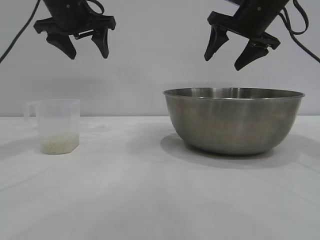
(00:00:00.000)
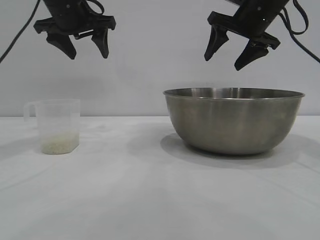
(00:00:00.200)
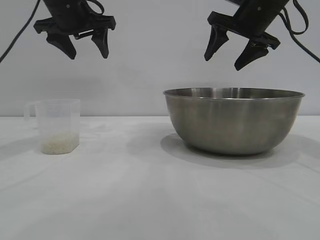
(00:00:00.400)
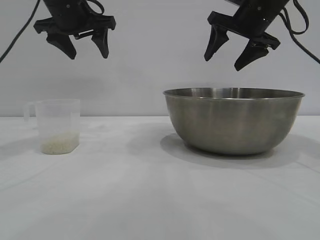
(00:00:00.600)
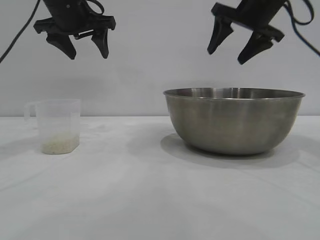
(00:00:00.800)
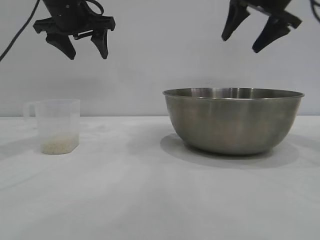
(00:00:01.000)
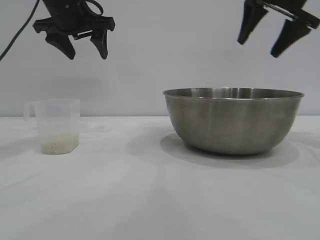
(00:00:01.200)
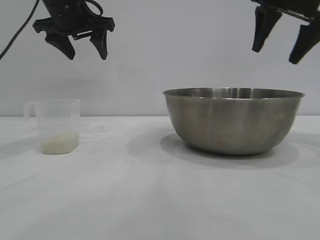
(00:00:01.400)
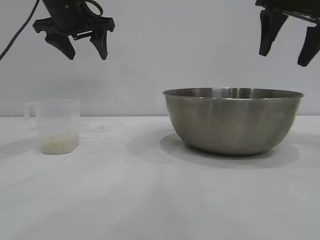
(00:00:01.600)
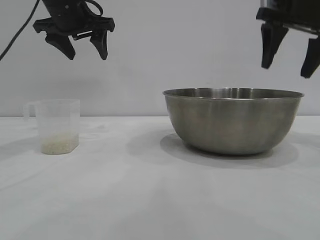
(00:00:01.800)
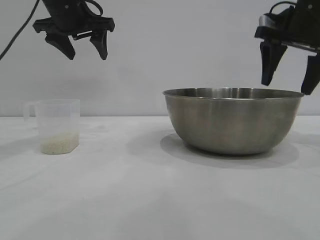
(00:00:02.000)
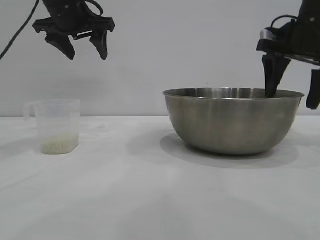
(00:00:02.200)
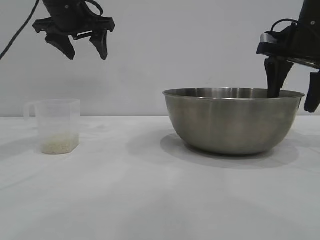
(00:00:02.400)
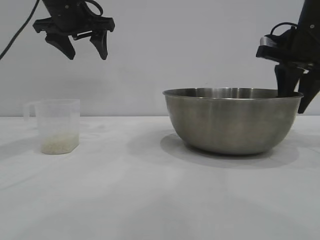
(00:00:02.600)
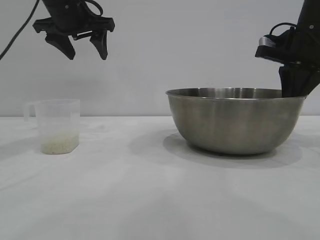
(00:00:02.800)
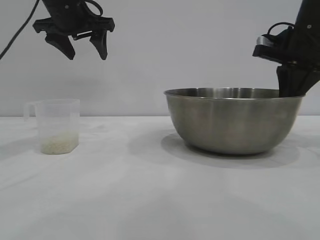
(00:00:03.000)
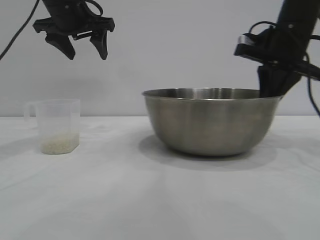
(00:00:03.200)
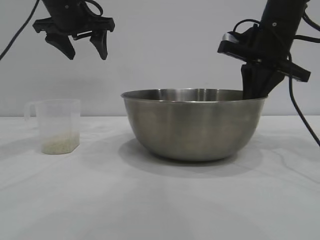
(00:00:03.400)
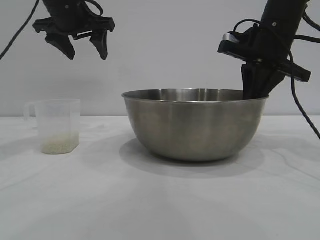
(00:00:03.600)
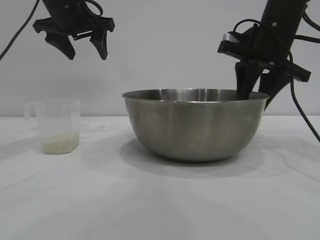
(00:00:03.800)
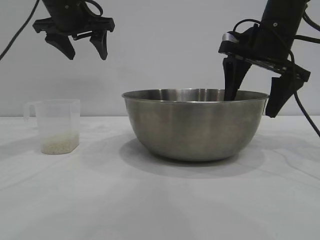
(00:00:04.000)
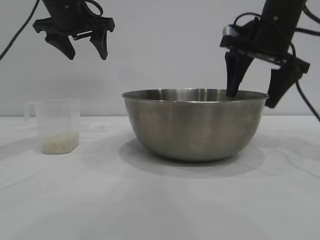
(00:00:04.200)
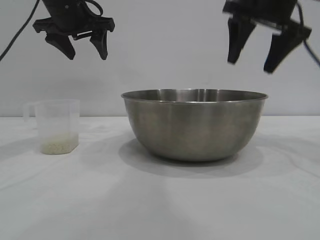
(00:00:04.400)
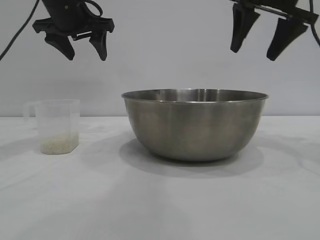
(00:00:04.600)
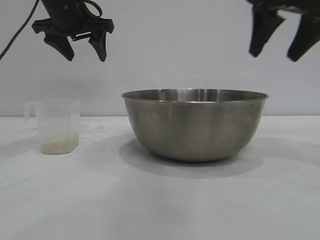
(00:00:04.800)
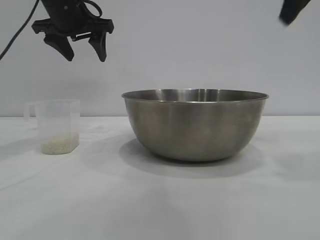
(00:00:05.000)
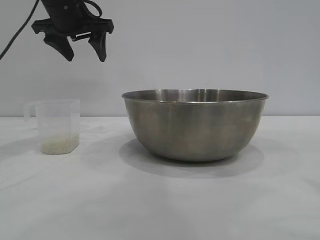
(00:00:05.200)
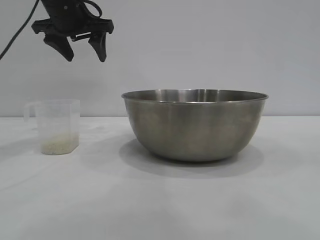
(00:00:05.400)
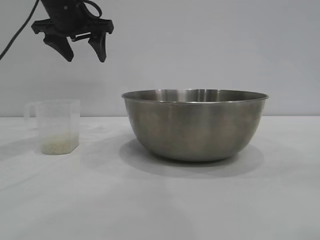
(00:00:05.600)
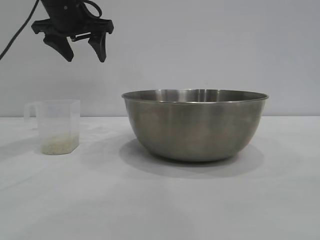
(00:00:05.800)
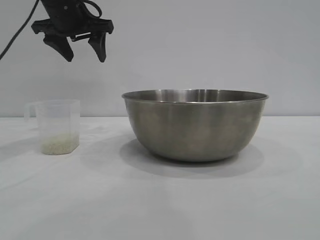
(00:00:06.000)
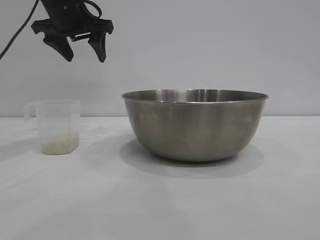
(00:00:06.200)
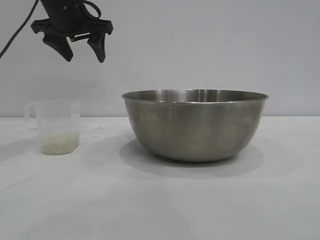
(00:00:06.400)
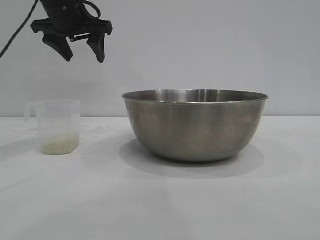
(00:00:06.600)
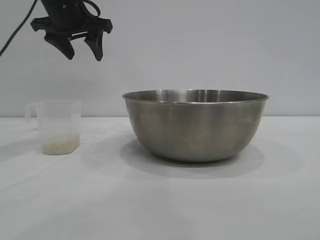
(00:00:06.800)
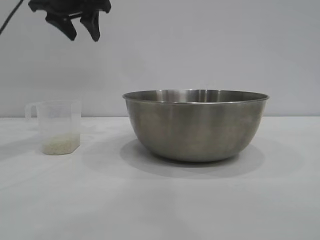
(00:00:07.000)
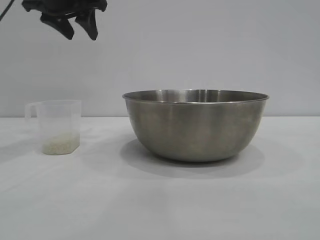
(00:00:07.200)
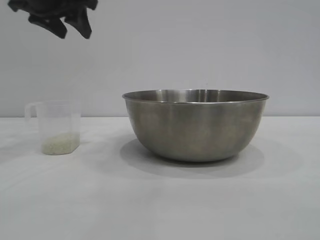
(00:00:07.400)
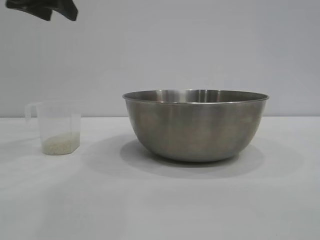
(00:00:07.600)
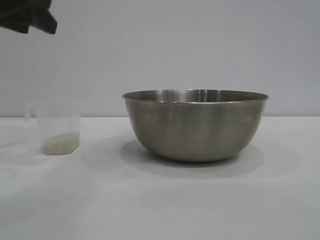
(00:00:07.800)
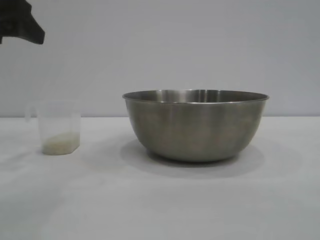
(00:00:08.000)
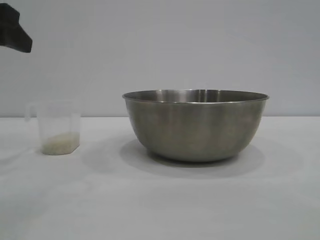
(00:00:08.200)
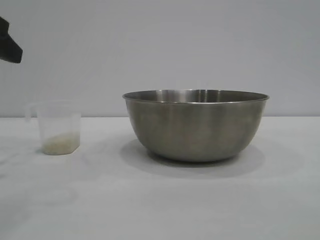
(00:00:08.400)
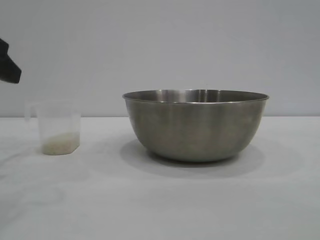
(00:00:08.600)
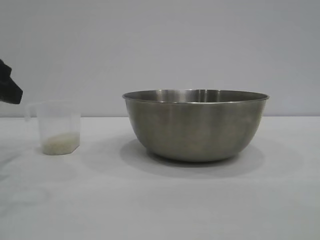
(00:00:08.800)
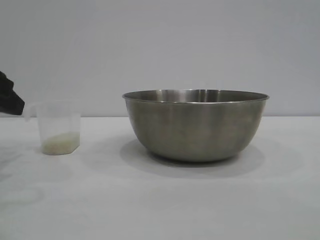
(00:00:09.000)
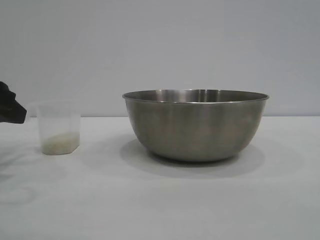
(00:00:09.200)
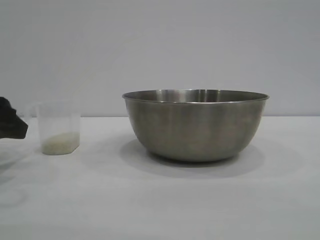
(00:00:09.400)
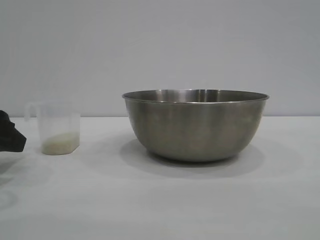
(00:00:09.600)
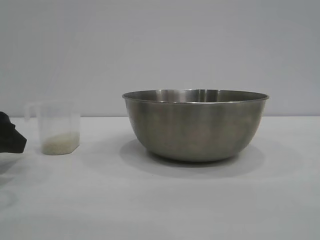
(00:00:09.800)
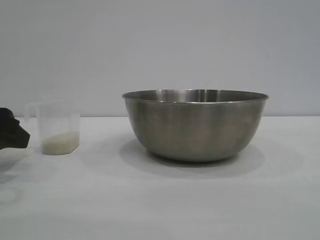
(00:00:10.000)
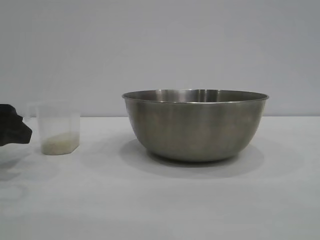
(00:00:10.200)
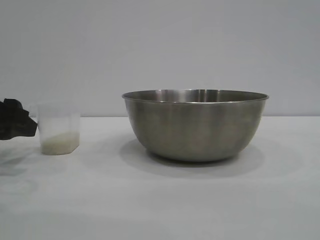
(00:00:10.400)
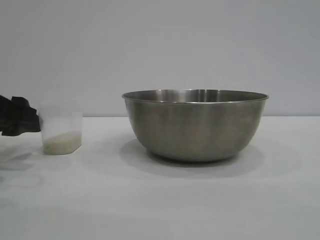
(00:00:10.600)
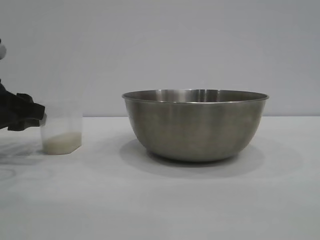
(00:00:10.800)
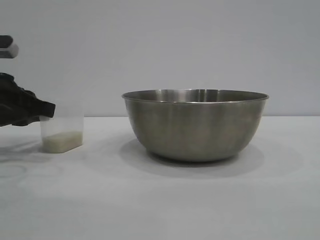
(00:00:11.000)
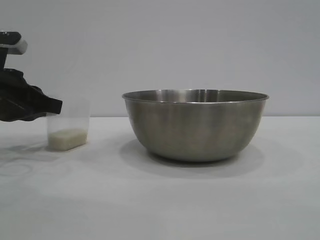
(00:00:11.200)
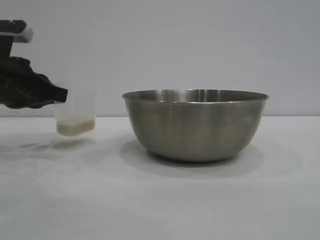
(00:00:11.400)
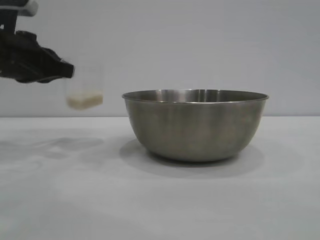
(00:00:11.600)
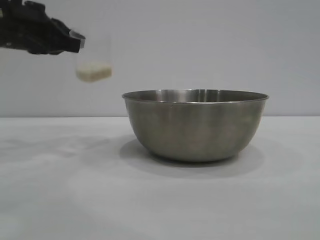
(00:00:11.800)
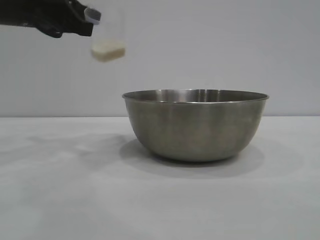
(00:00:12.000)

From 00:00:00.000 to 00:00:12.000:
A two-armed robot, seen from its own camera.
Task of the whole recording: the right gripper grasp the rice container and place it in the center of the table, the left gripper grasp the rice scoop and pour the rice into the rice container.
Step, from 00:00:00.000 to 00:00:04.600: Move the bowl to the center of view with the right gripper.
Step, from 00:00:04.800 to 00:00:11.600: Pick up the cup with rice in it with the left gripper.

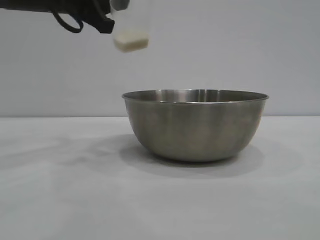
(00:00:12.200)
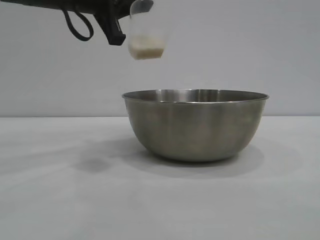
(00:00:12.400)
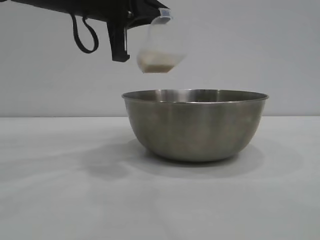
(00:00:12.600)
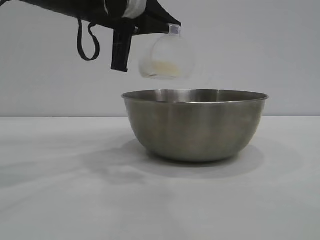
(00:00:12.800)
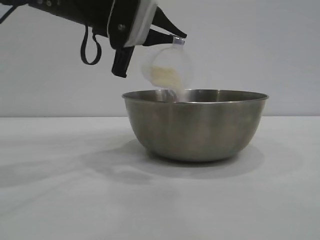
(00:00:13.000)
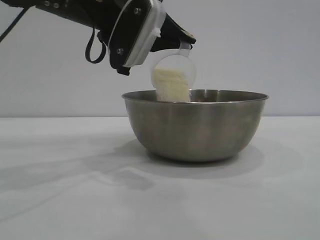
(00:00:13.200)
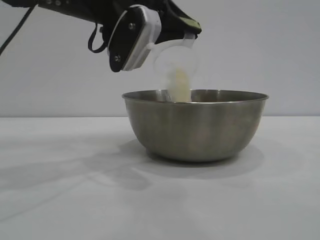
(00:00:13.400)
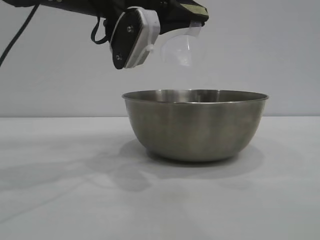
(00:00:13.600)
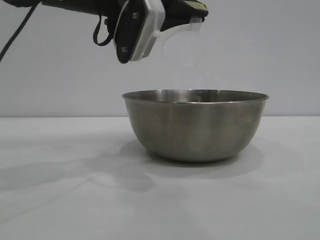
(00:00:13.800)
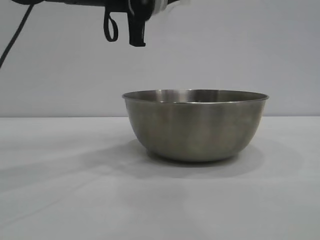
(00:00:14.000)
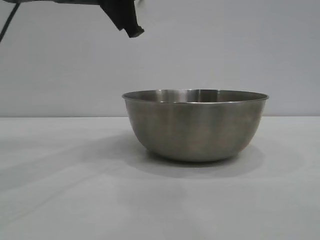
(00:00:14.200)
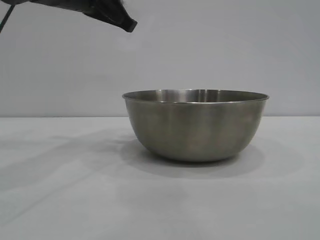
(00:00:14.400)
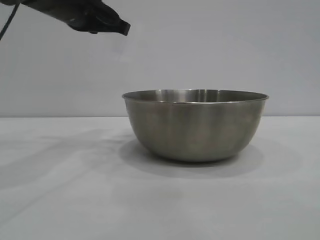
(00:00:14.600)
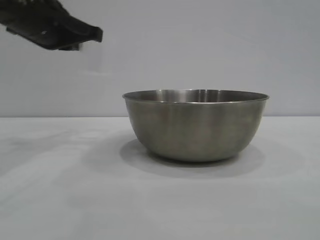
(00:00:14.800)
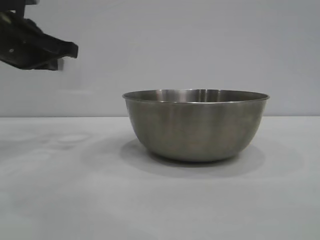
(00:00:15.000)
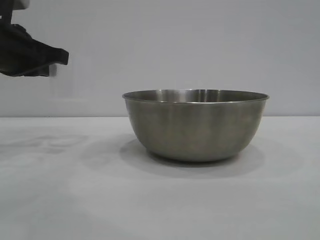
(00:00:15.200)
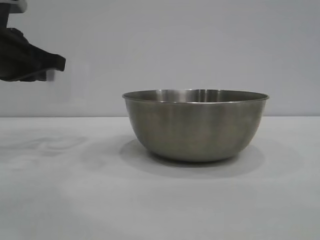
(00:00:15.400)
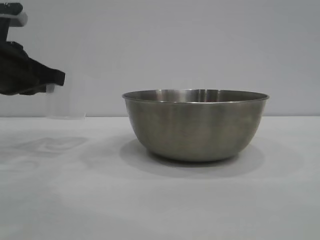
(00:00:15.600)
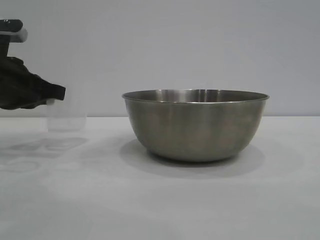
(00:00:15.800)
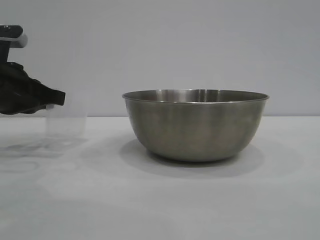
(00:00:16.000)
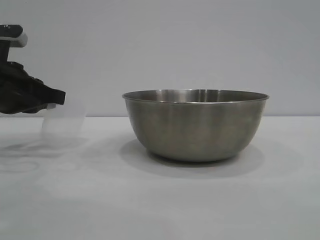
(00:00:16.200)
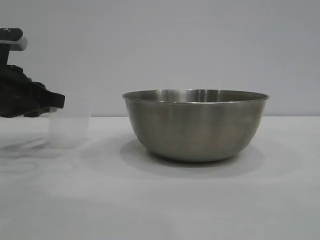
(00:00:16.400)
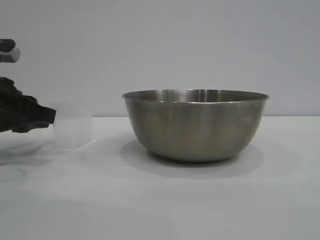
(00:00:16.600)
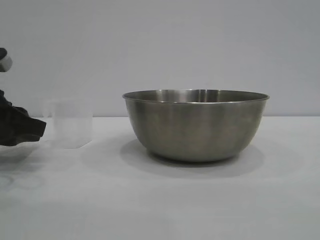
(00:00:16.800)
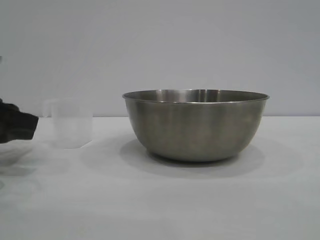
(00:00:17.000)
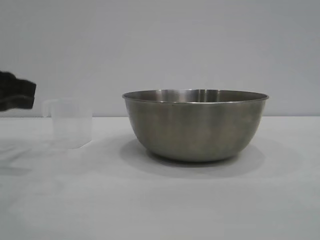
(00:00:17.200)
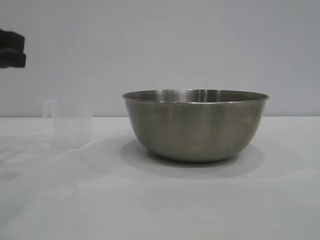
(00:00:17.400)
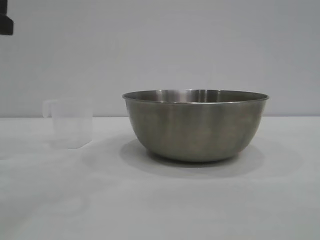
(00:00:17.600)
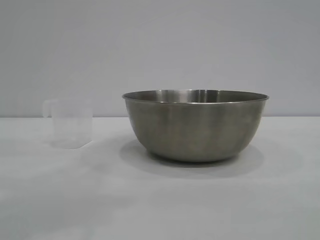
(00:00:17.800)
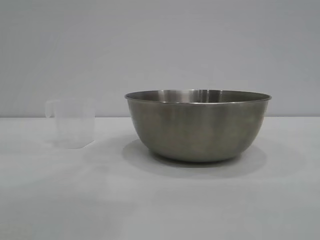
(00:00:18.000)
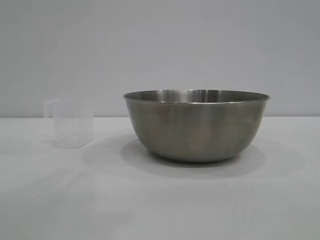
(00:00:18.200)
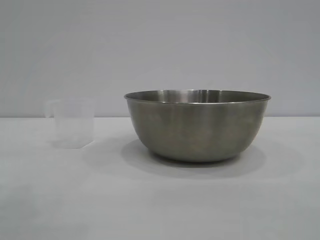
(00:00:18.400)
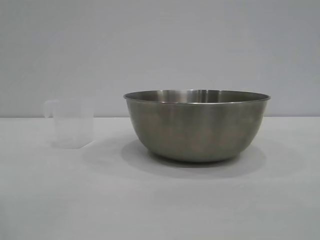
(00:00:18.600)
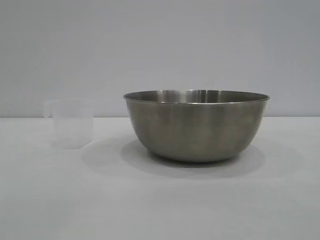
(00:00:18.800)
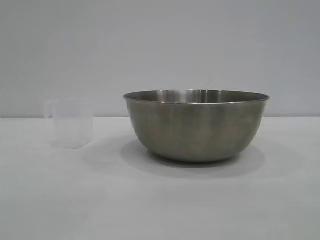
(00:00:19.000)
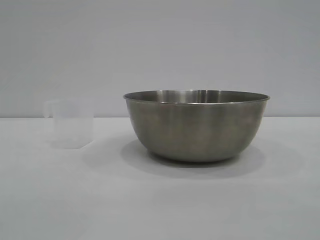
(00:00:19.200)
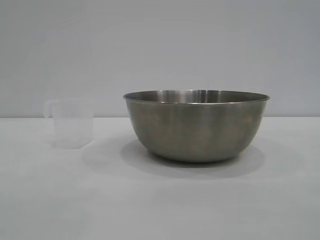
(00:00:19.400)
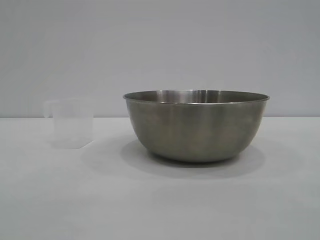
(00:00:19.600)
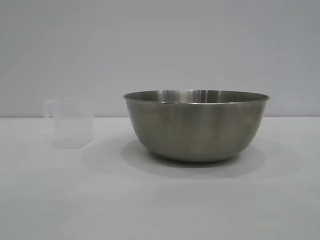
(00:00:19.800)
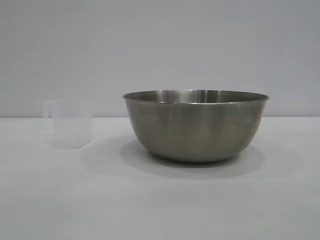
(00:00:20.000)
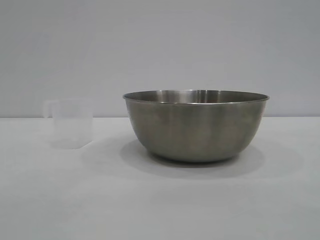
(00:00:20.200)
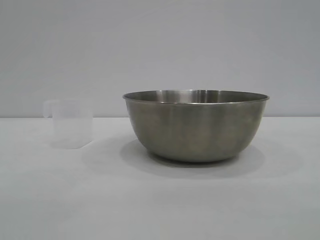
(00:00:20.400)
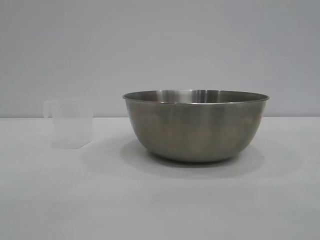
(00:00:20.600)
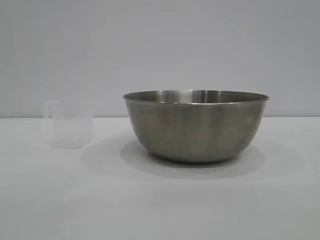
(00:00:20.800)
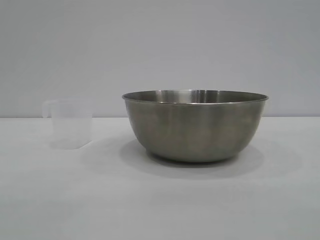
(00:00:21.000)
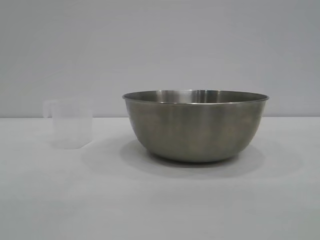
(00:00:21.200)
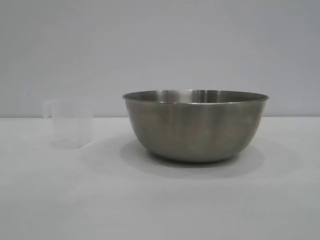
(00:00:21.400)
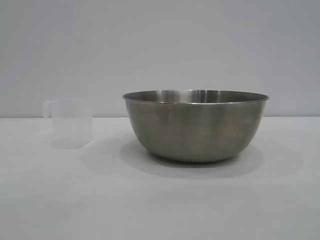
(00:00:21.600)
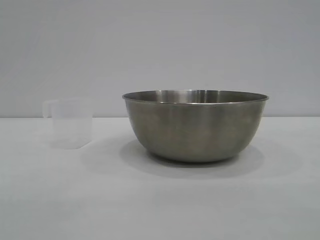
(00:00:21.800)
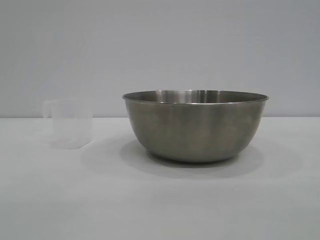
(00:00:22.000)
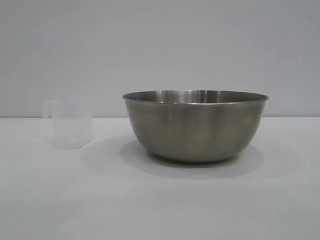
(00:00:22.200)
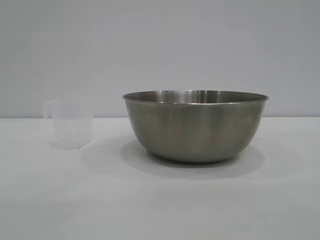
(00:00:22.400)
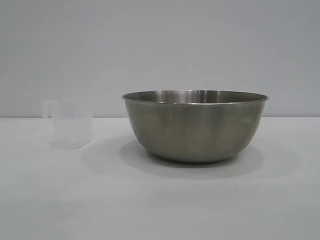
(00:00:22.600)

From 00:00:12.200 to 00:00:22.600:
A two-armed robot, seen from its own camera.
Task of the whole recording: the right gripper grasp the rice container and place it in the center of the table, the left gripper grasp the rice scoop and pour the rice into the rice container.
Step, from 00:00:12.200 to 00:00:14.200: Pour the rice from the cup into the bowl with the left gripper.
Step, from 00:00:14.400 to 00:00:17.000: Place the cup on the table with the left gripper.
